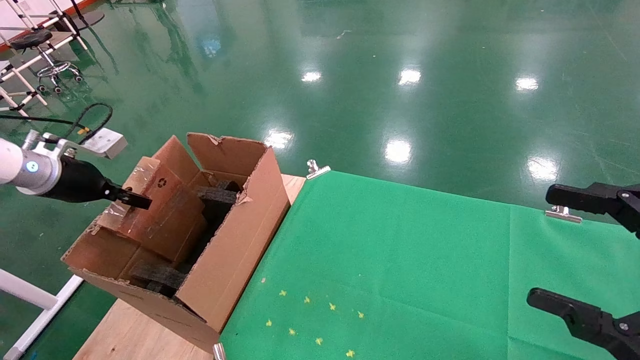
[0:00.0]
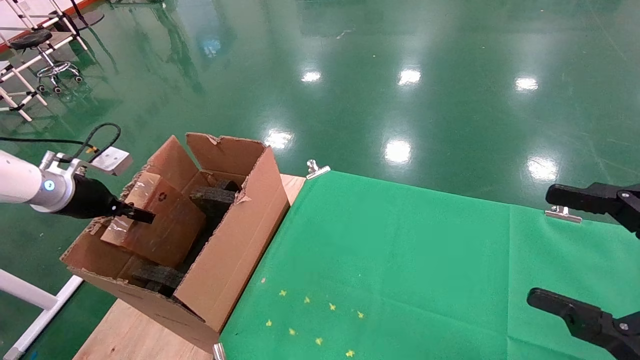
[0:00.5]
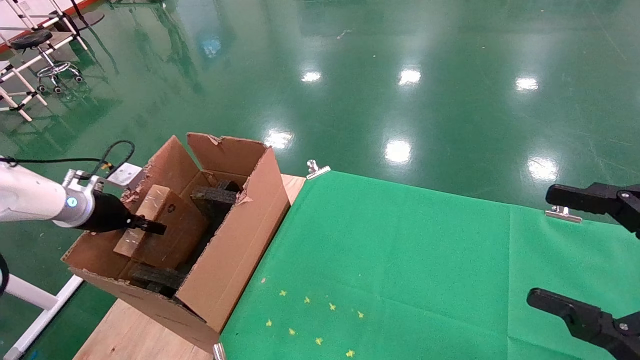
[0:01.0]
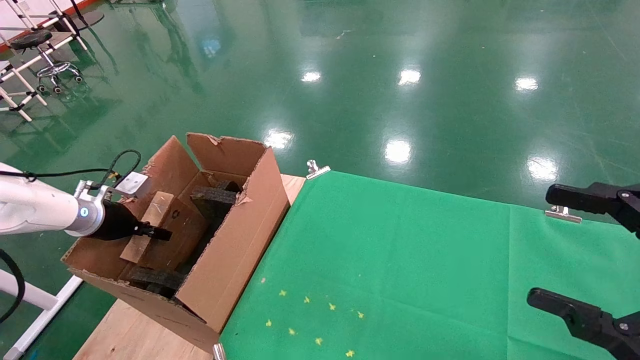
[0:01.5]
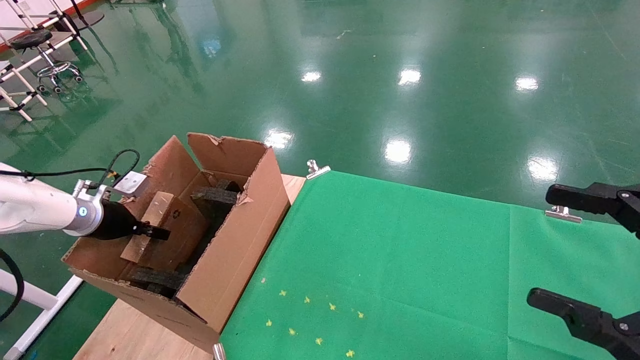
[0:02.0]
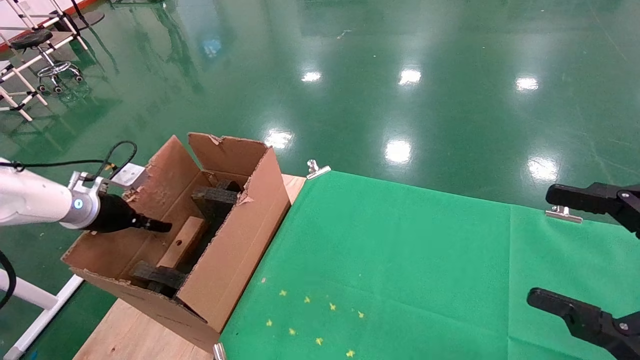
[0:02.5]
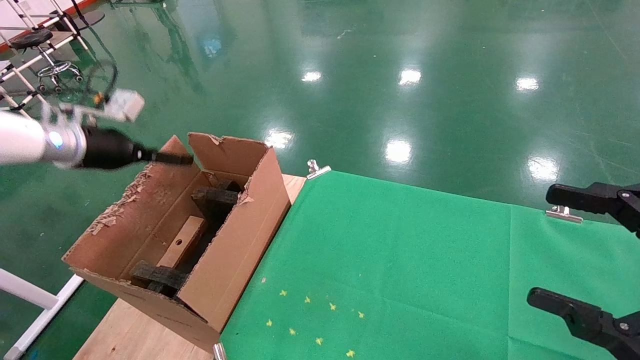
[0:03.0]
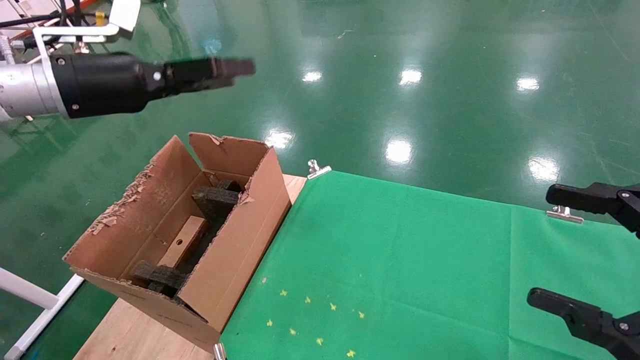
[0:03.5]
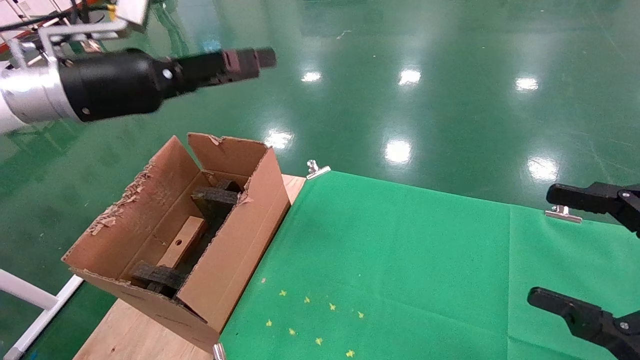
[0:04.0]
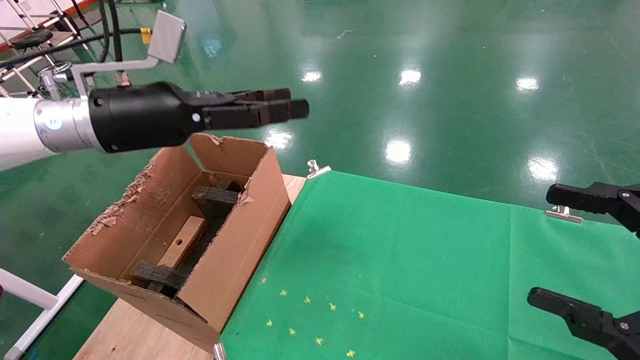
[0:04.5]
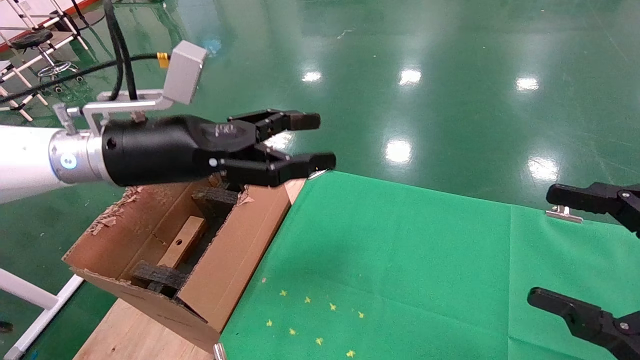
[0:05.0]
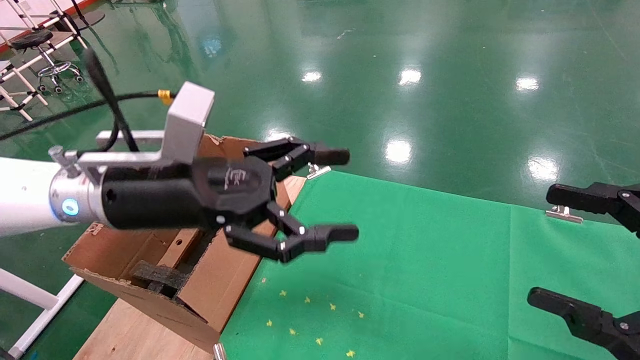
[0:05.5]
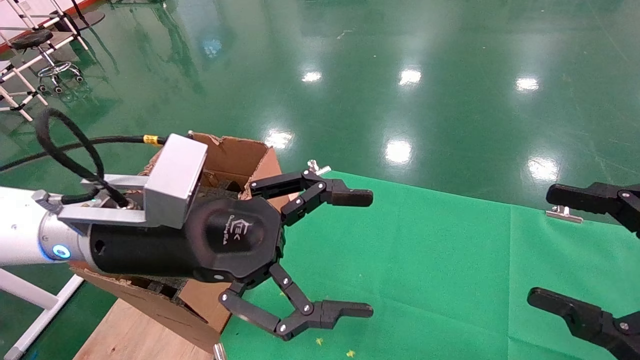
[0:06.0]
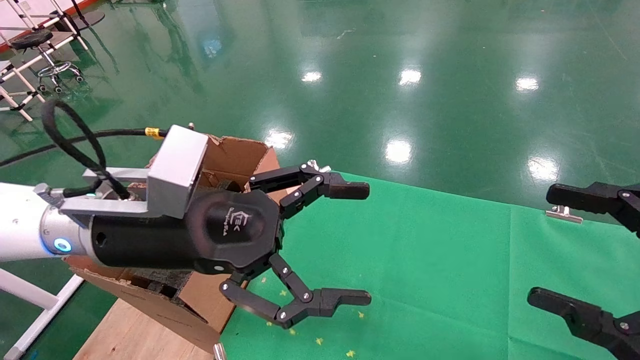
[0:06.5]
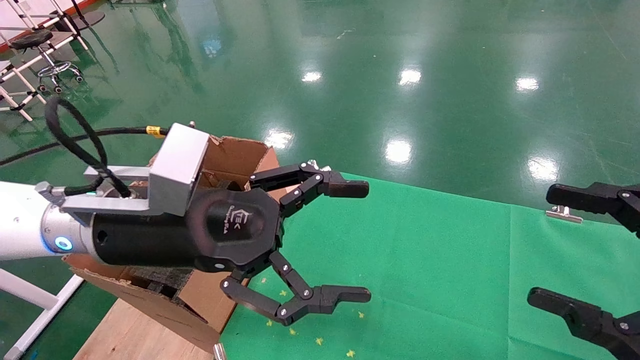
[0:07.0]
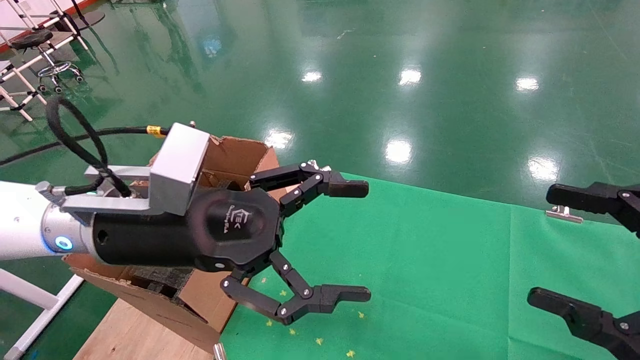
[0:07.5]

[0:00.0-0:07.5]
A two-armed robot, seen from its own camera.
Task of the whole recording: using a robotic arm to pick up a cardboard box and palace it the carton.
Step, 0:00.0 to 0:03.0: Place the mouse and the power cord paper box into the container.
0:00.0 to 0:02.0: The left gripper shifts approximately 10 cm downward.
0:02.0 to 0:04.0: The left gripper moves upward and to the right, approximately 25 cm, and opens.
0:04.0 to 0:05.5: The left gripper is displaced to the right, downward and backward by some 15 cm.
0:05.5 to 0:07.5: The grippers stay close to where they were, moving slightly.

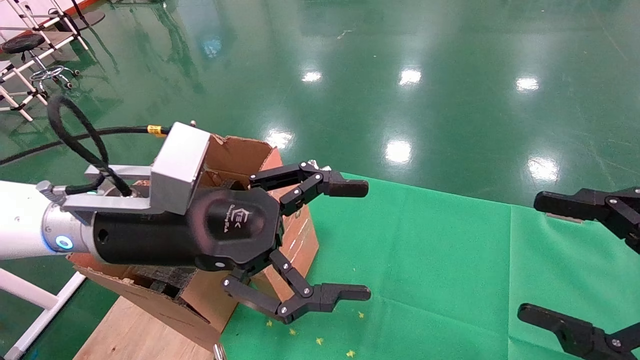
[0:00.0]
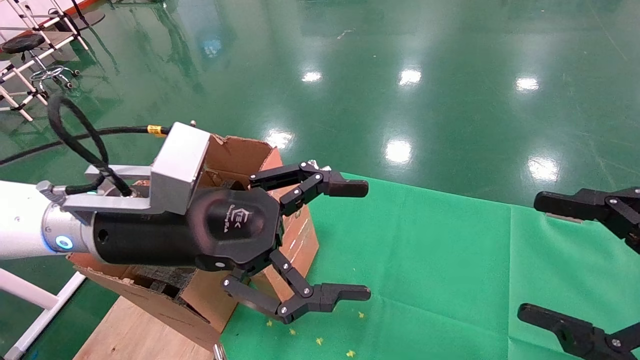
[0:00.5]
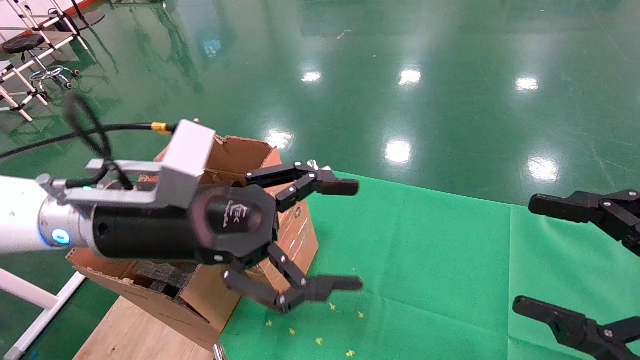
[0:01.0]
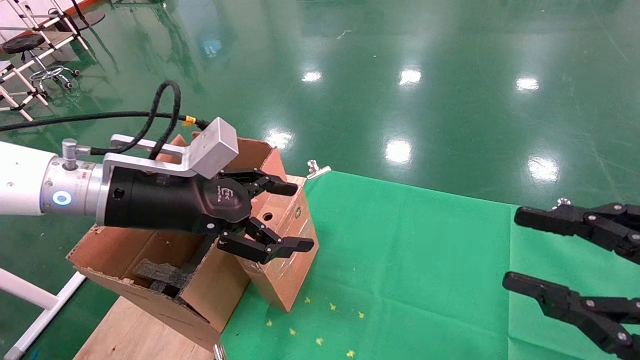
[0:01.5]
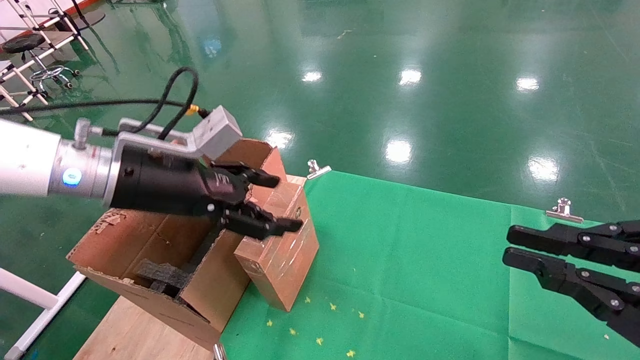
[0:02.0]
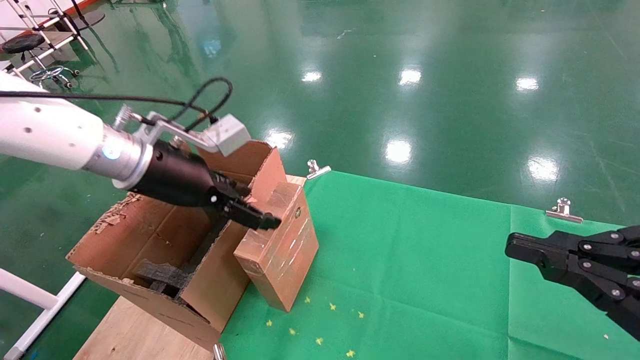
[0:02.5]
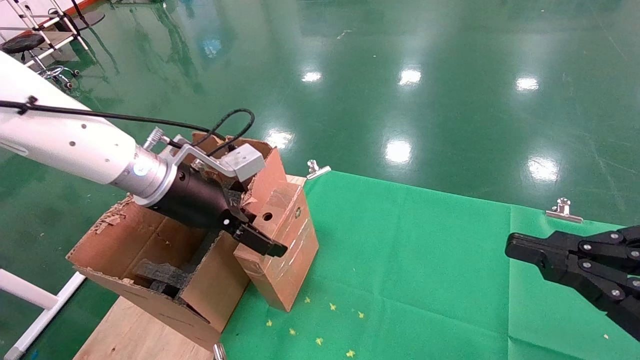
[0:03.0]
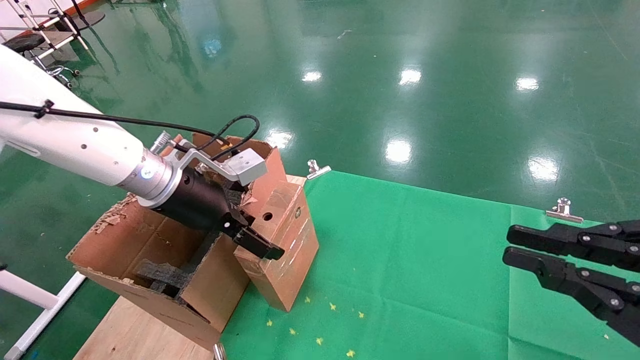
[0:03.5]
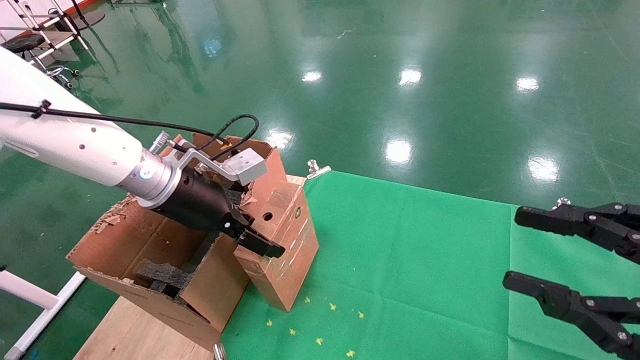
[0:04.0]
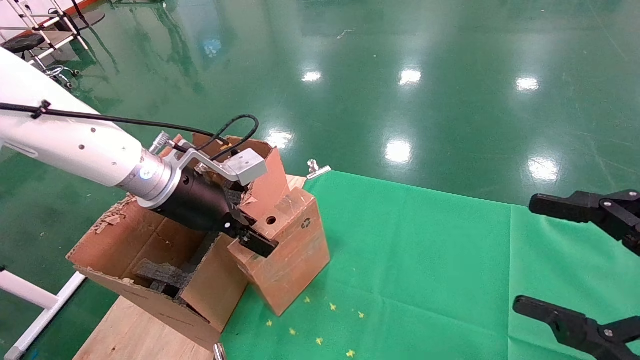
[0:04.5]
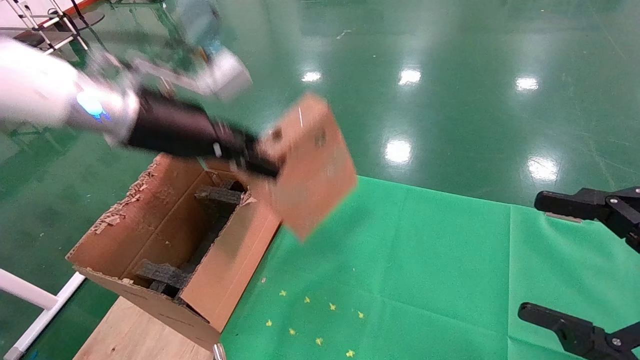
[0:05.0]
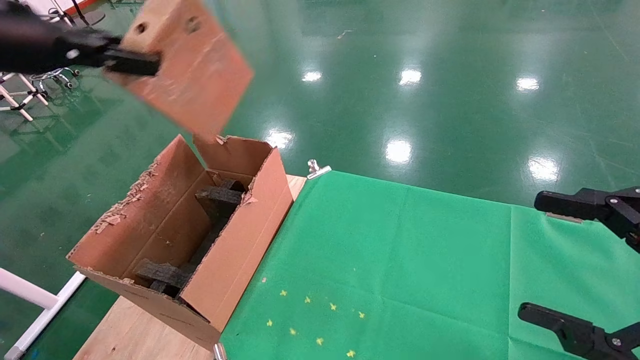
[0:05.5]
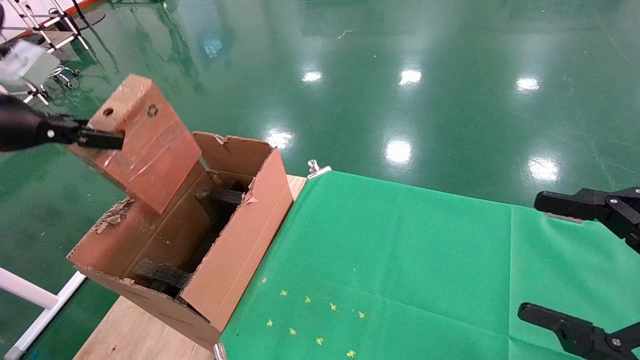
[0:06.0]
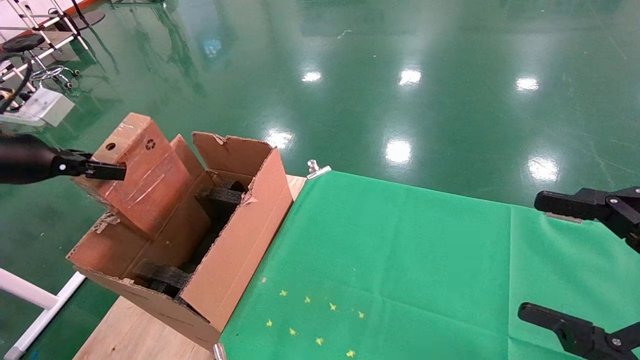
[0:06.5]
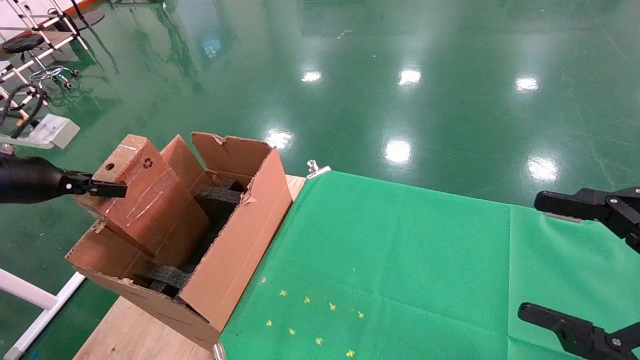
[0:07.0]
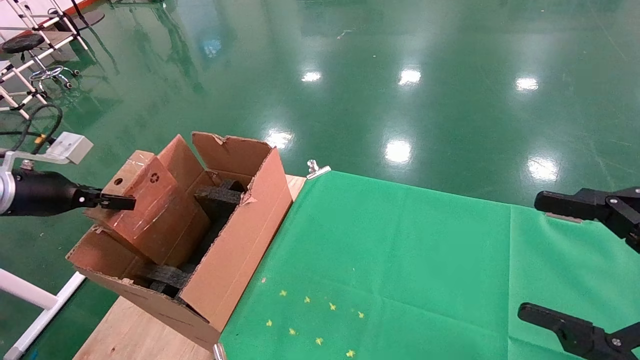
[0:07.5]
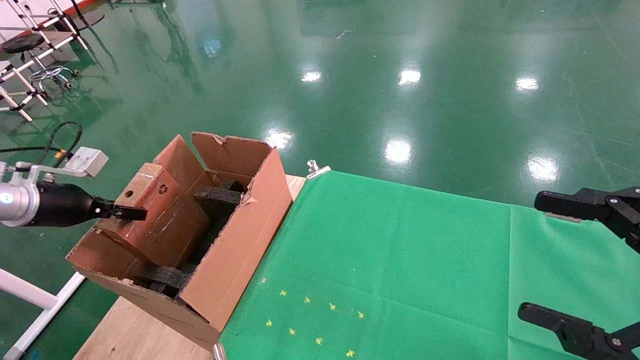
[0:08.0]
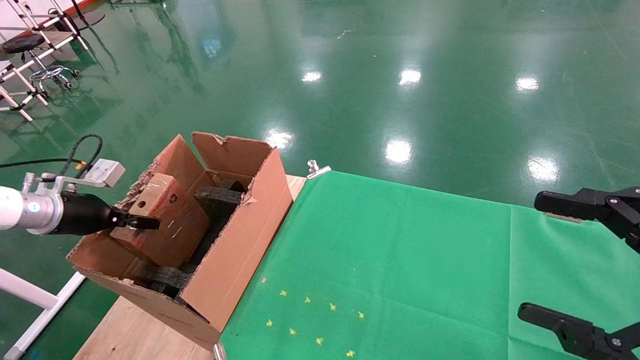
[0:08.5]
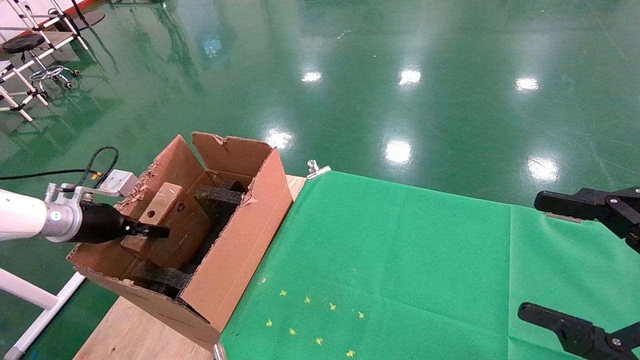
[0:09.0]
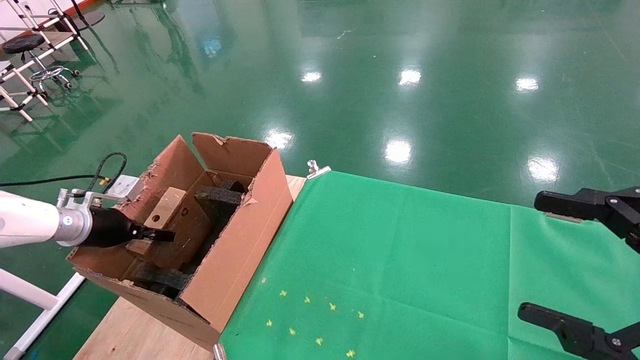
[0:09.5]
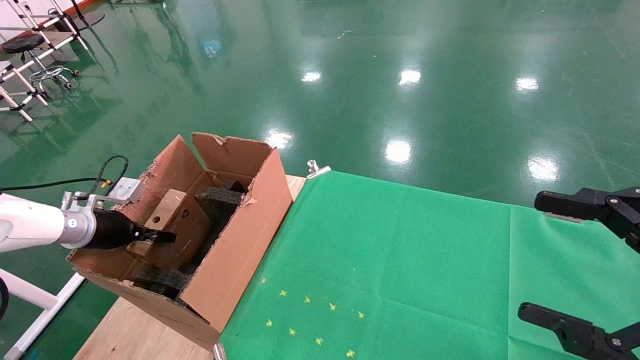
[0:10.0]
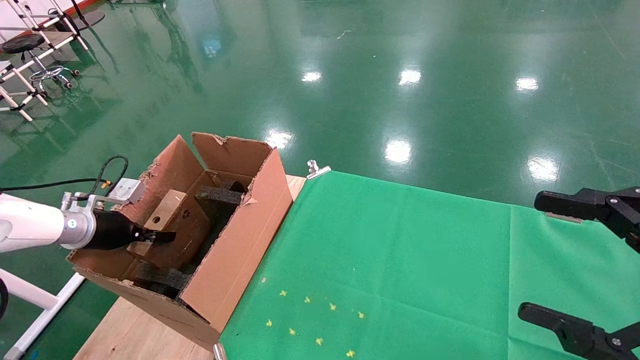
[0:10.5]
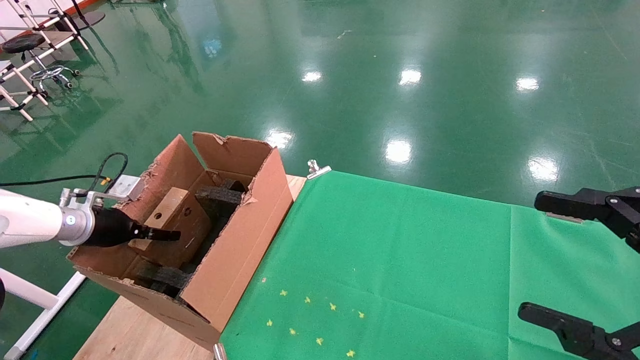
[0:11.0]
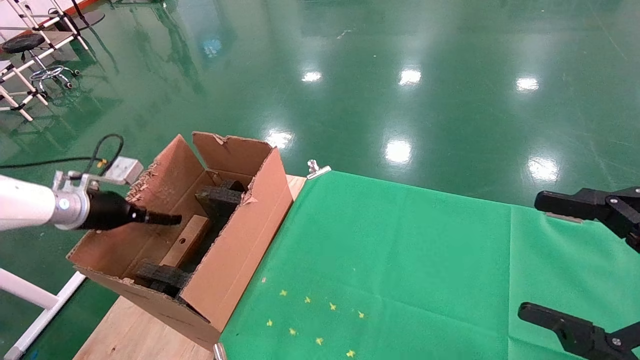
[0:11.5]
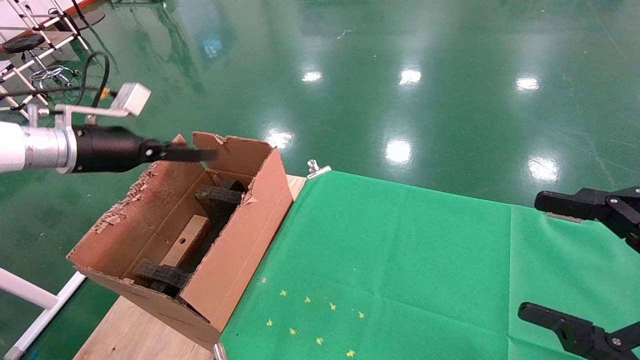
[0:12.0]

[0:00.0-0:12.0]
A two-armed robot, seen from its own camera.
Task of the whole recording: using a robotic arm to pick up a cardboard box and palace it the carton.
Step, 0:01.5 to 0:04.5: Pick up the mouse and the power cord paper box.
0:00.0 to 0:02.0: The left gripper travels to the left and forward by some 10 cm. The right gripper closes.
0:02.0 to 0:04.0: The left gripper is displaced forward by about 5 cm.
0:04.0 to 0:06.0: The left gripper goes roughly 25 cm to the left, upward and backward, and closes its fingers. Meanwhile the right gripper opens.
0:06.0 to 0:08.0: The left gripper heads downward and forward, covering about 15 cm.
0:08.0 to 0:10.0: The left gripper goes approximately 10 cm downward.
0:10.0 to 0:12.0: The left gripper is displaced upward and to the right by some 15 cm, and opens its fingers.
